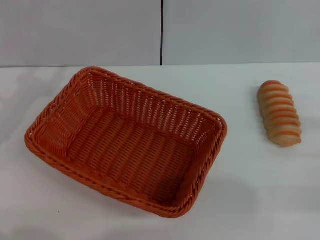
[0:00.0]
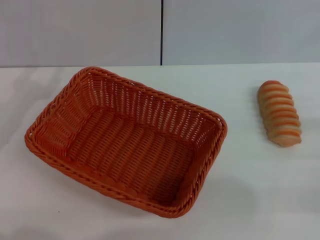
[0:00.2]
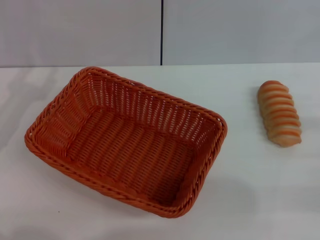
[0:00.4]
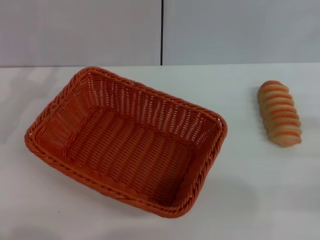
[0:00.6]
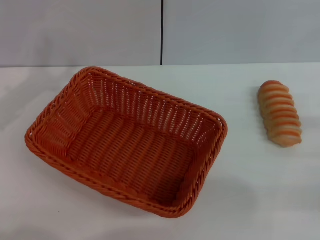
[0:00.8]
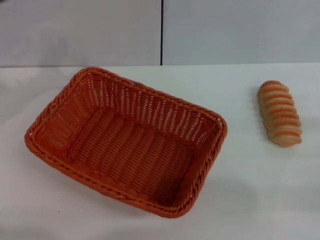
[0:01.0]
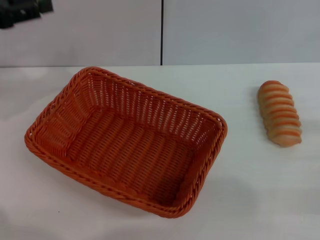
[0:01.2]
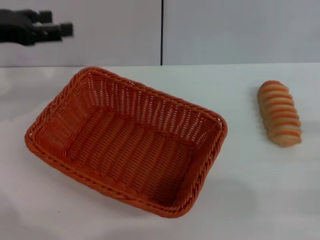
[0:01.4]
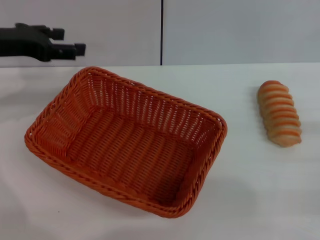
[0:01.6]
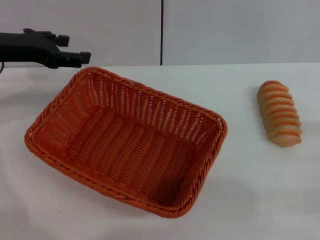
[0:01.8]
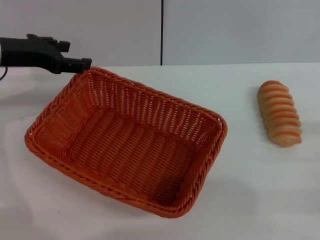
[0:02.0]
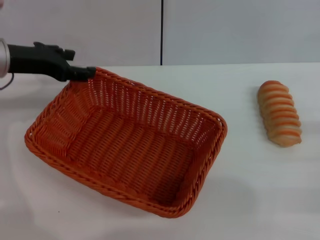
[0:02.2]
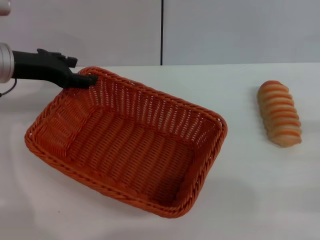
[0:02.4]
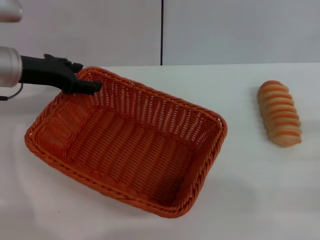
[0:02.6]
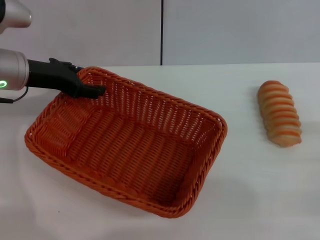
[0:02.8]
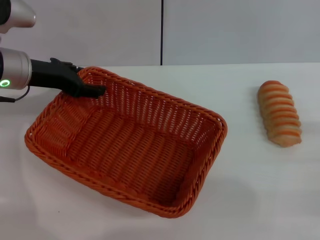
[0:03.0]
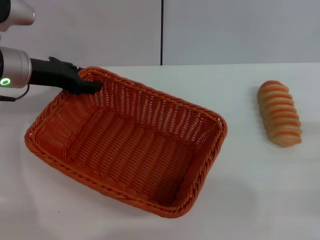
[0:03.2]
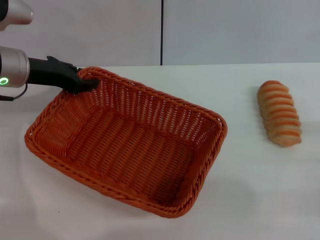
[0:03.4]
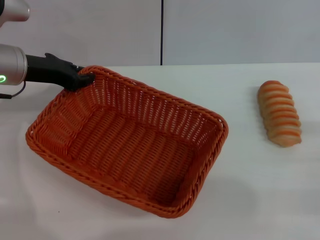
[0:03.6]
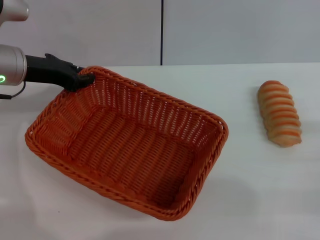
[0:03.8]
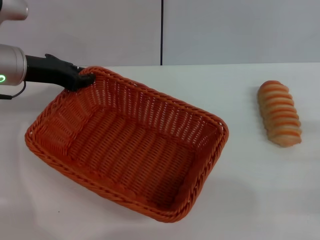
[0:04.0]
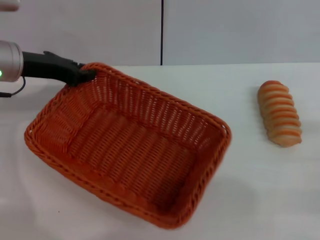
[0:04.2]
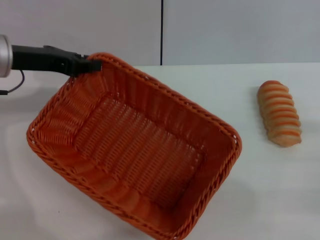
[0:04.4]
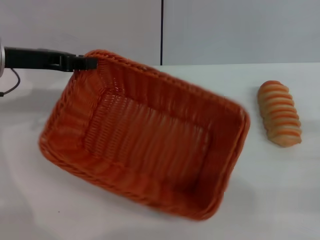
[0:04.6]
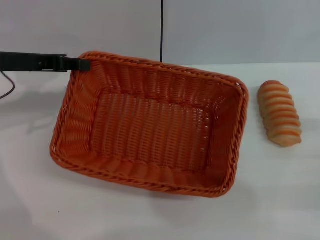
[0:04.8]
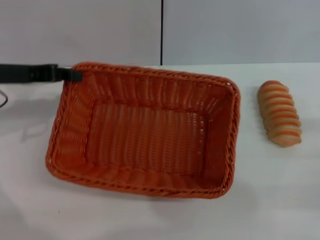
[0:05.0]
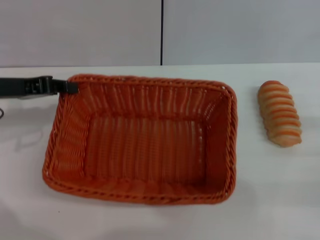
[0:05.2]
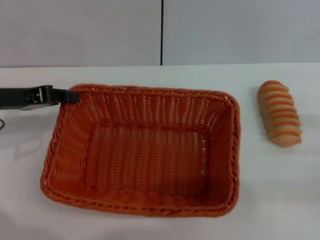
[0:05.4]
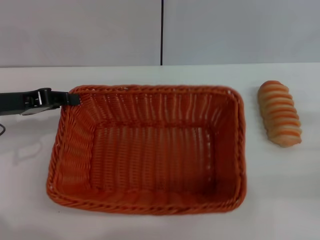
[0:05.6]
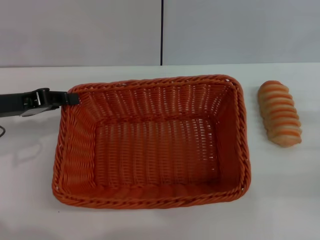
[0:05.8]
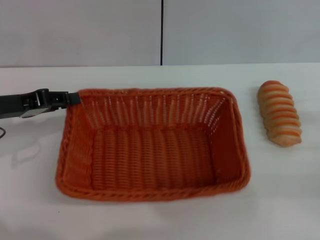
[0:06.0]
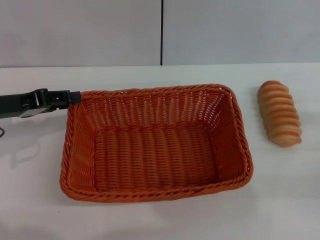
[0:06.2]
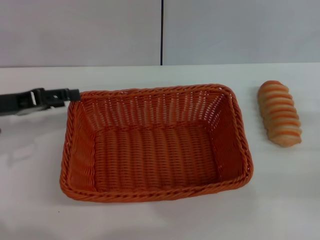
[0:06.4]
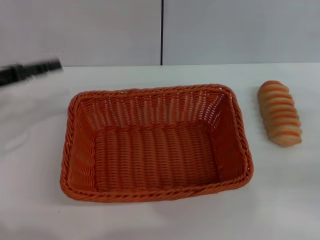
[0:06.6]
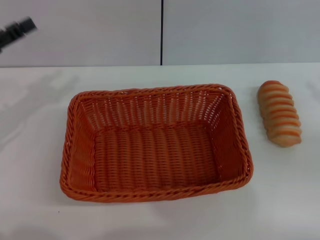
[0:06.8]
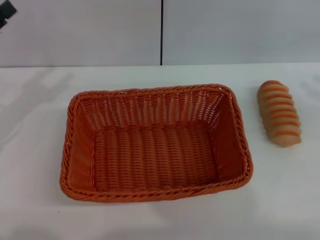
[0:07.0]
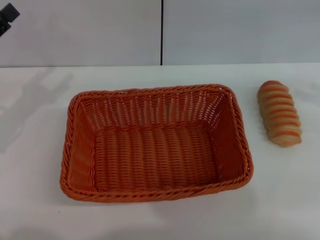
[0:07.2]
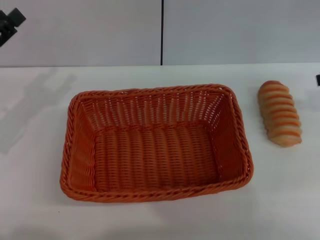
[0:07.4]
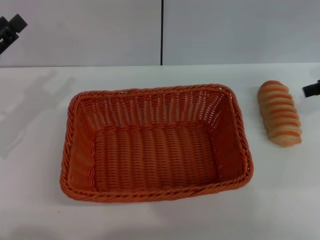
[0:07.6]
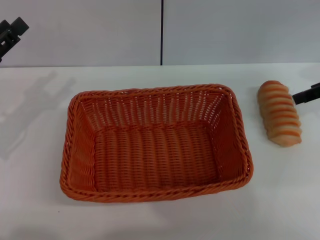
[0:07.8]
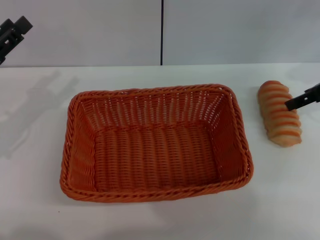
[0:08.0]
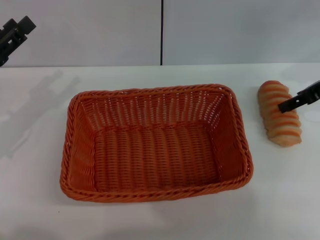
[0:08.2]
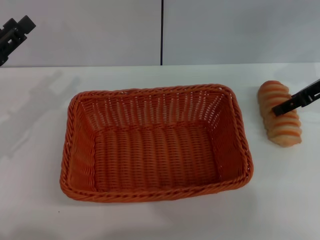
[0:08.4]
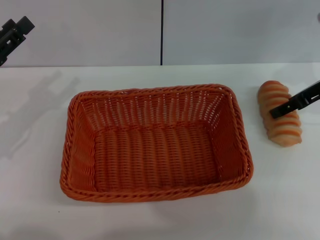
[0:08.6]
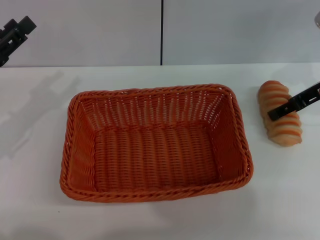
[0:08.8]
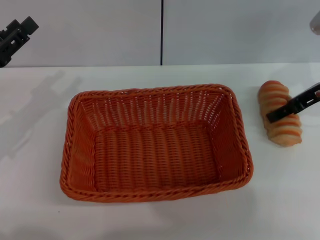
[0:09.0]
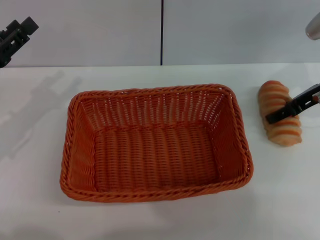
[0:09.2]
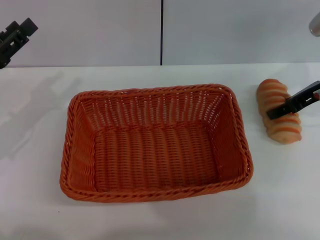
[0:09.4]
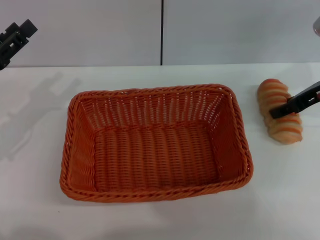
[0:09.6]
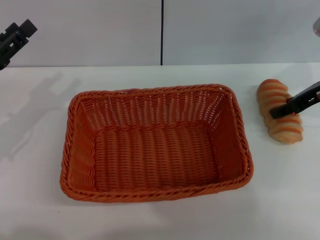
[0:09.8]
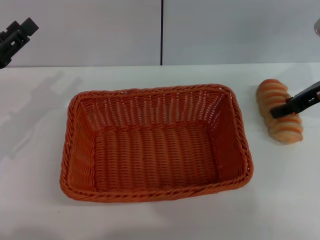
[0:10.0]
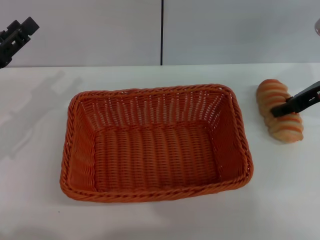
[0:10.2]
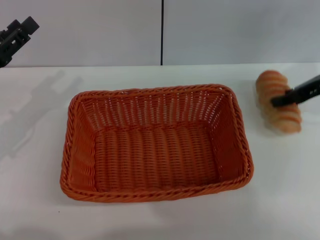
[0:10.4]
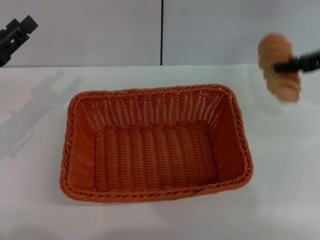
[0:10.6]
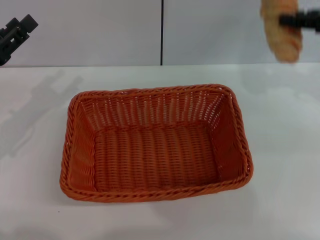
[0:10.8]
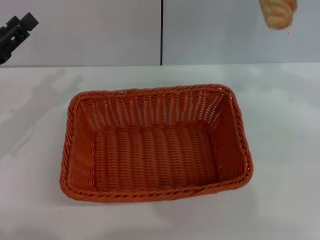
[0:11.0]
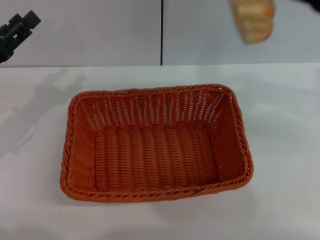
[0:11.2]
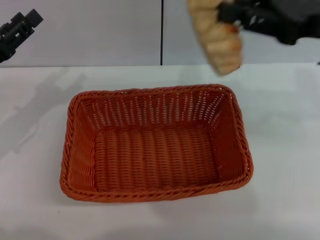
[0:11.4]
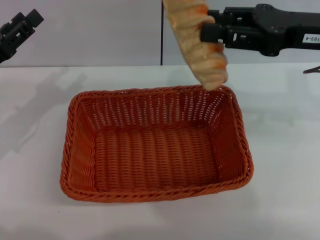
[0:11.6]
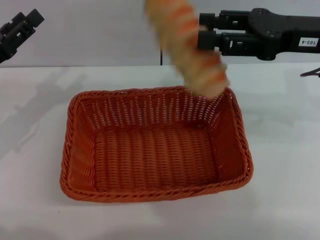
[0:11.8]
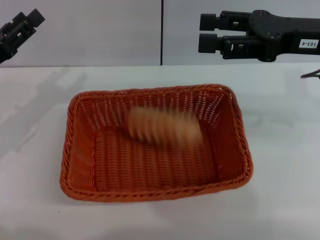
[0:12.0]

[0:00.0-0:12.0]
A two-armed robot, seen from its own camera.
Step, 0:00.0 to 0:04.4: Pick up the light basket with the left gripper.
Step, 0:04.6 to 0:06.4: Place the light basket in the center of view with the left gripper.
Step, 0:06.6 to 0:10.6: Pick up the long bread with the right gripper.
0:00.0 to 0:01.6: The left gripper shifts roughly 10 cm forward and upward.
0:01.6 to 0:03.0: The left gripper is displaced downward by approximately 5 cm.
0:03.0 to 0:04.4: The left gripper closes its fingers.
0:04.4 to 0:06.0: The left gripper shifts some 5 cm backward.
0:06.0 to 0:07.6: The left gripper opens; the right gripper travels forward and upward by about 20 cm.
0:07.6 to 0:09.0: The right gripper is displaced to the left and downward by some 10 cm.
0:09.0 to 0:10.4: The right gripper closes up.
0:10.4 to 0:12.0: The right gripper travels upward and to the left by about 10 cm, and closes, then opens again.

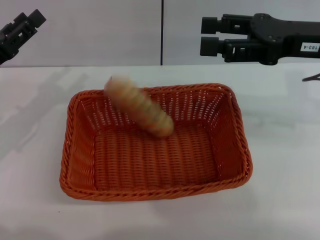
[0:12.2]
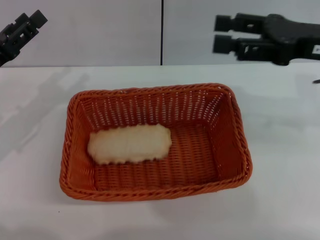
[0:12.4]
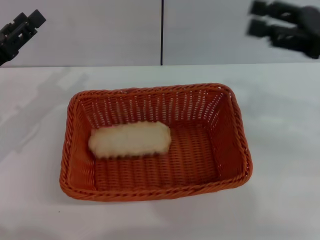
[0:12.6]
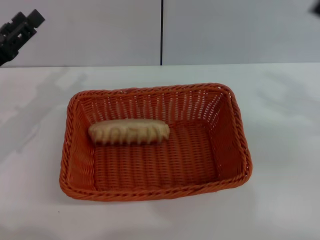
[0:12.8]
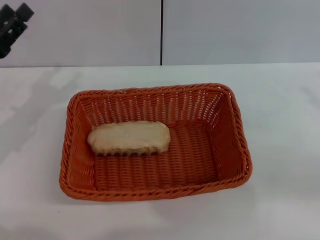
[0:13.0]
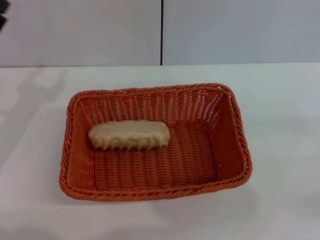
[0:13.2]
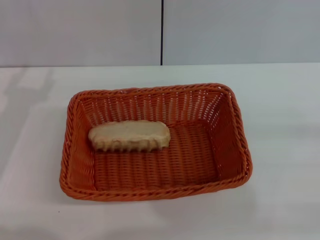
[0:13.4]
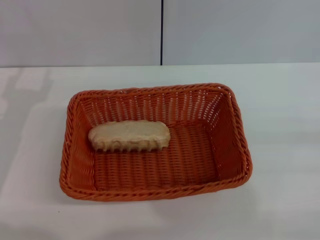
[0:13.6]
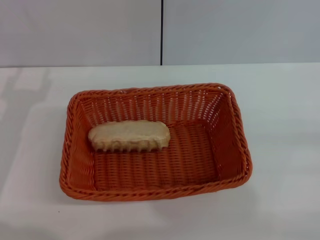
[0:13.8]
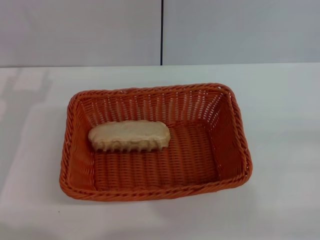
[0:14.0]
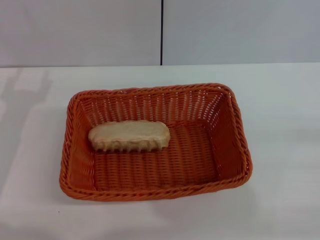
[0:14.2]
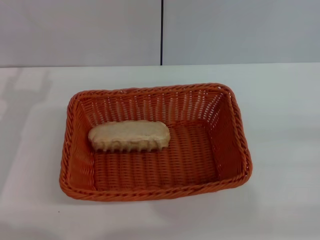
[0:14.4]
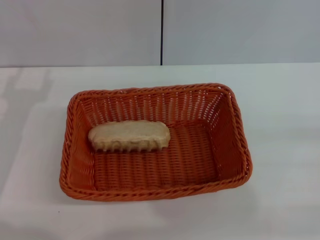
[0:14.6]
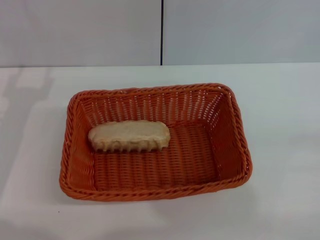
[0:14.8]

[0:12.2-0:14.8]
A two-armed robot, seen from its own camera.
0:12.2 to 0:13.4: The right gripper heads to the right, backward and downward, covering approximately 25 cm.

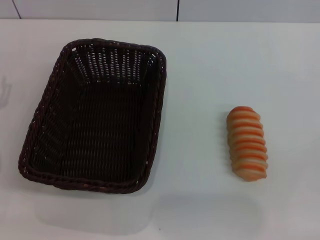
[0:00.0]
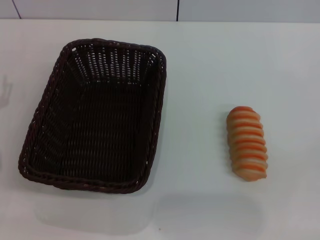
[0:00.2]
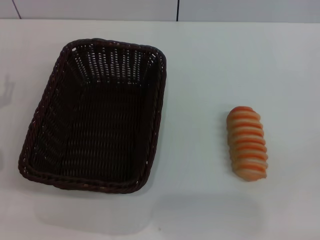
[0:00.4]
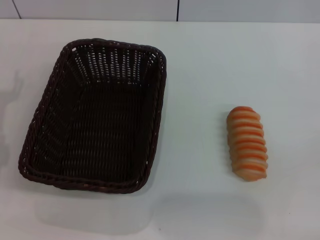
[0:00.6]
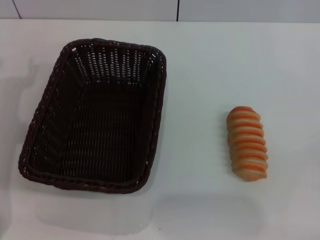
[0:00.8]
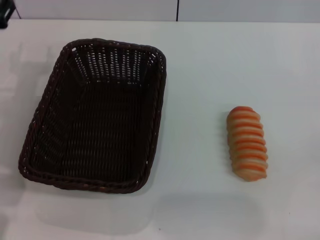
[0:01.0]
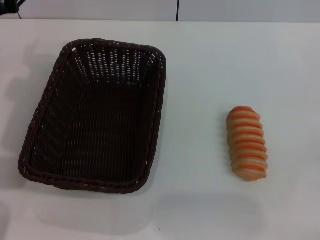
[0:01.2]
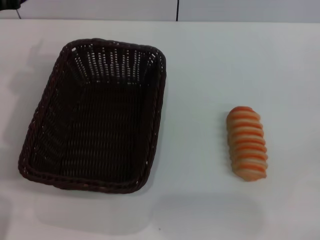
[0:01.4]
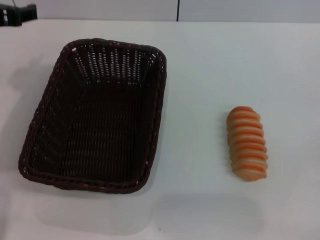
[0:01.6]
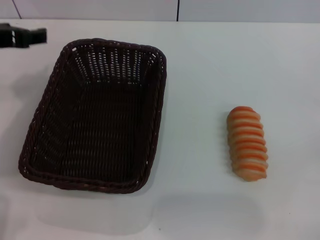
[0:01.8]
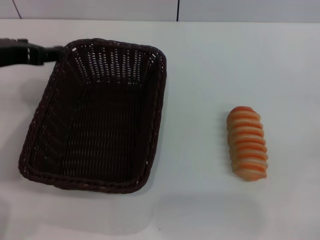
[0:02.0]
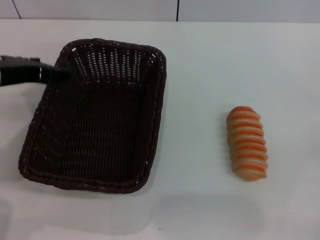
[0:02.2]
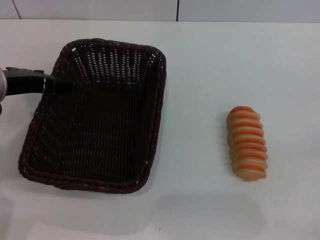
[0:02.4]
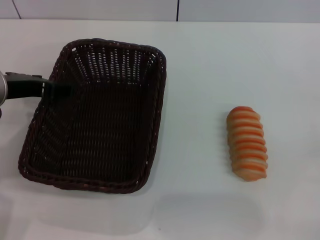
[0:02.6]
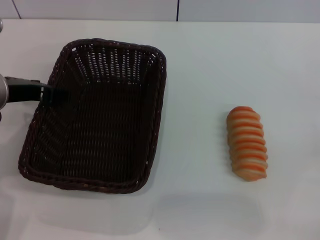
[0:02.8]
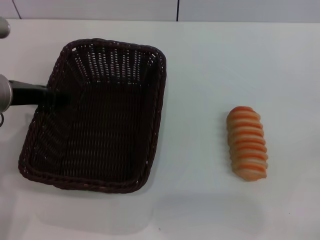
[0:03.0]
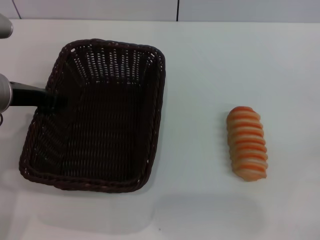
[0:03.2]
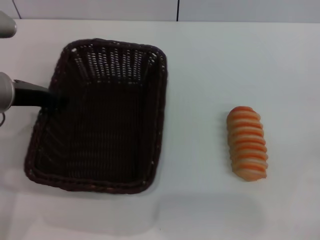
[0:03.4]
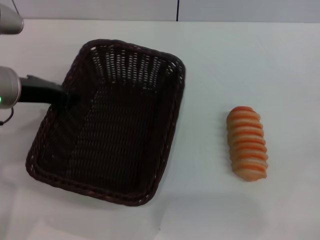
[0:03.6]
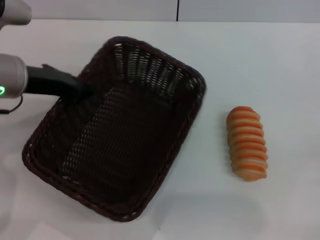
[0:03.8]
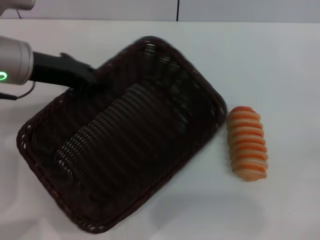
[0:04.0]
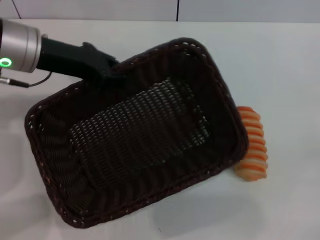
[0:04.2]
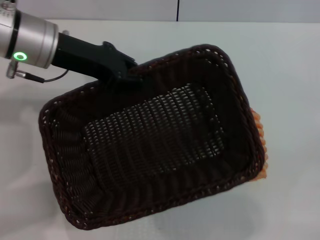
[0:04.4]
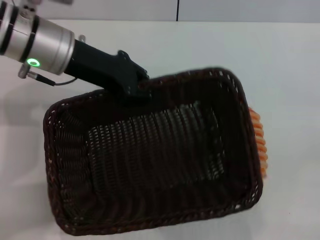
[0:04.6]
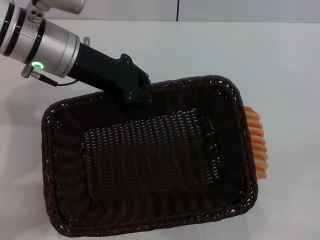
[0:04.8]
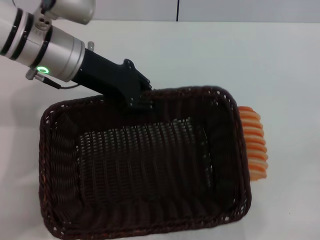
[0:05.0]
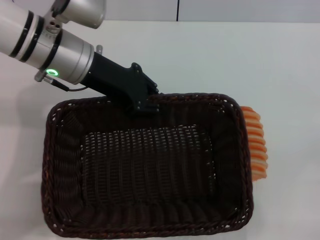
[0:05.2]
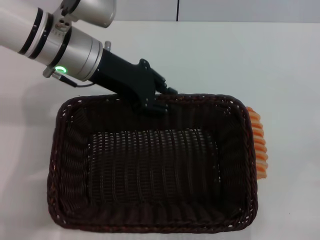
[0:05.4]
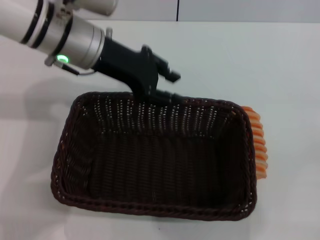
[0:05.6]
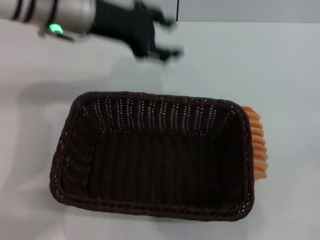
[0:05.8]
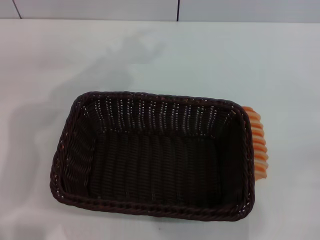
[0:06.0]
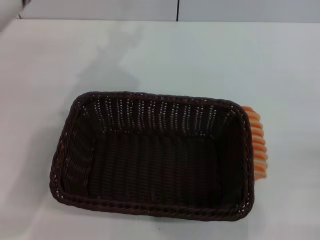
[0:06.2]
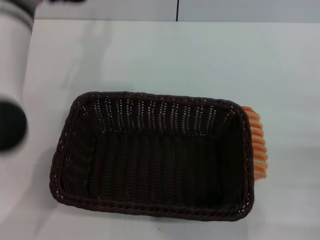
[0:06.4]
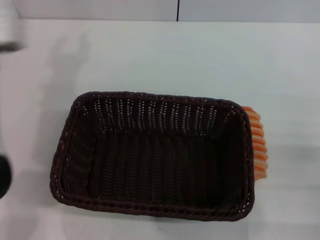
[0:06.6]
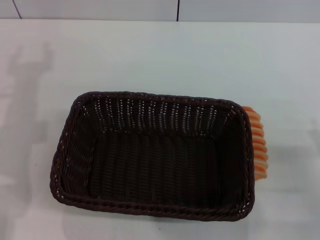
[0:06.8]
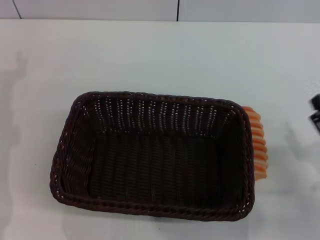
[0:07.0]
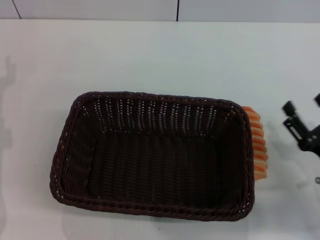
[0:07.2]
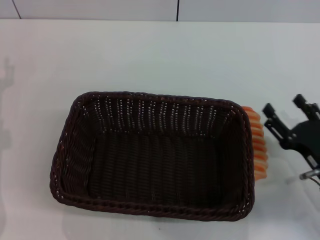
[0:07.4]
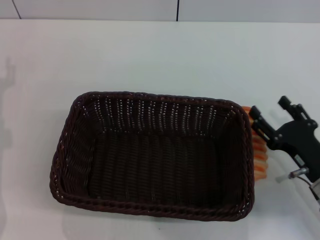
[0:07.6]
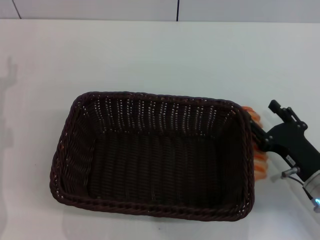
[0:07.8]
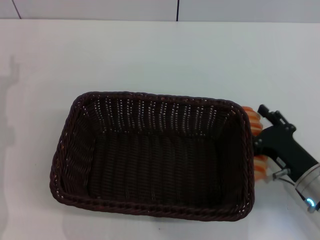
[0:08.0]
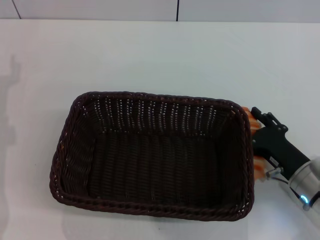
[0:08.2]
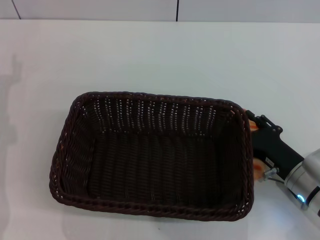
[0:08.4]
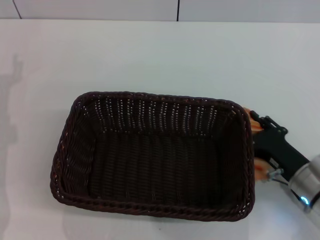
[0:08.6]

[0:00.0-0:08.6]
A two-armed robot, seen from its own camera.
Step, 0:00.0 to 0:04.4: Pick up the dark basket with the left gripper.
Step, 0:04.6 to 0:07.0: Place the dark basket in the center of view with the left gripper.
0:01.4 to 0:02.8: The left gripper shifts by some 5 cm.
0:02.8 to 0:04.4: The left gripper shifts about 10 cm forward and to the right, and closes its fingers.
0:04.4 to 0:05.8: The left gripper ends up roughly 5 cm from where it was, and opens its fingers.
0:05.8 to 0:07.2: The left gripper moves to the left, downward and backward, approximately 25 cm. Meanwhile the right gripper shifts approximately 10 cm to the left.
0:07.2 to 0:08.6: The right gripper shifts by roughly 5 cm, and closes.
